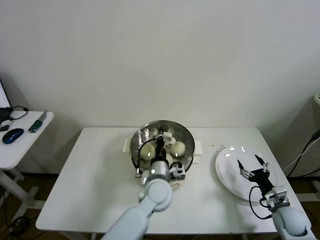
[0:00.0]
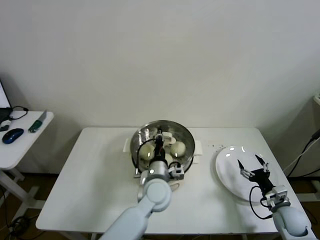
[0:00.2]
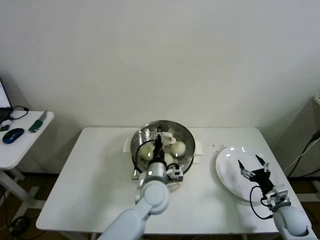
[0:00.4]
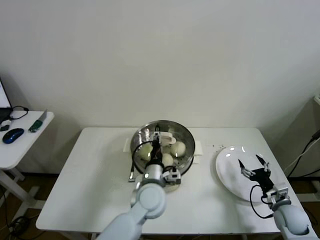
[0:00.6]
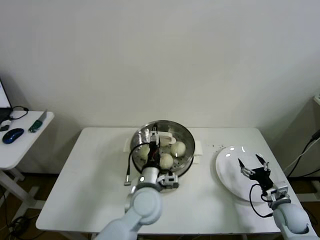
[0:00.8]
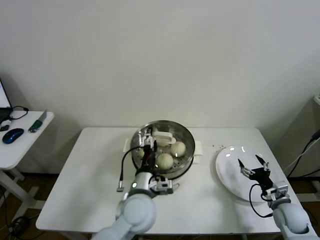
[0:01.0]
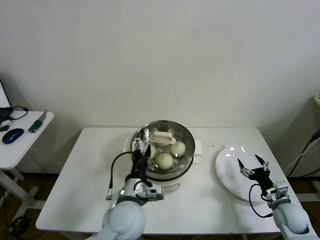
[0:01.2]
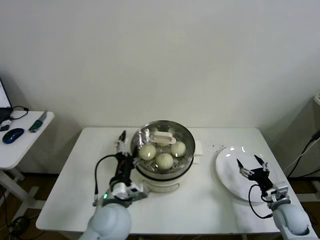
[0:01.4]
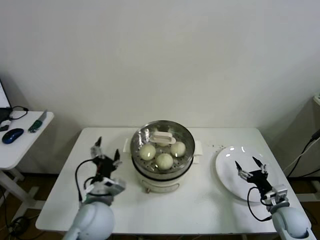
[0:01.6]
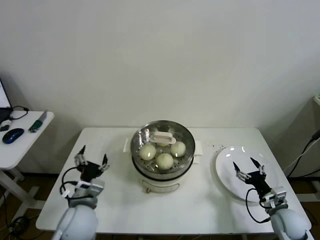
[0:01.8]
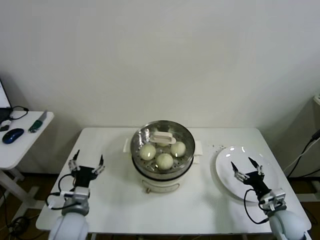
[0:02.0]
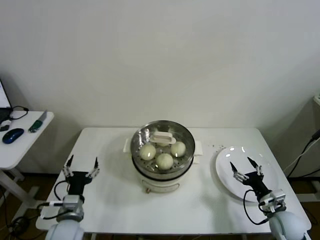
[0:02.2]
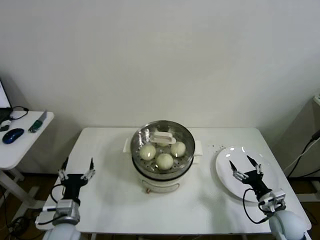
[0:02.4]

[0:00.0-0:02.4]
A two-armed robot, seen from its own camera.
0:00.0 to 0:01.2: The left gripper shifts about 10 cm backward and to the left, and opens up.
0:01.2 to 0:02.4: The left gripper is displaced to the left and downward by about 25 cm.
